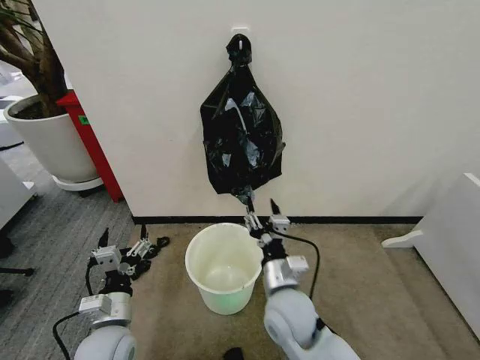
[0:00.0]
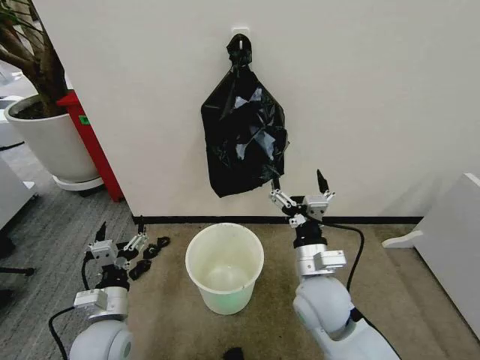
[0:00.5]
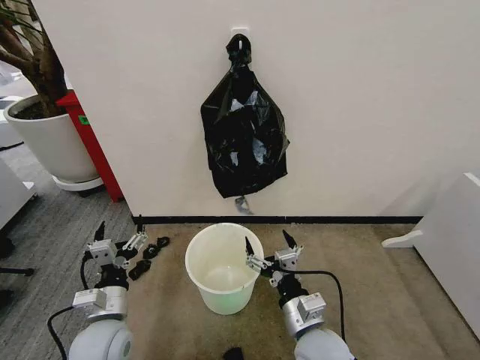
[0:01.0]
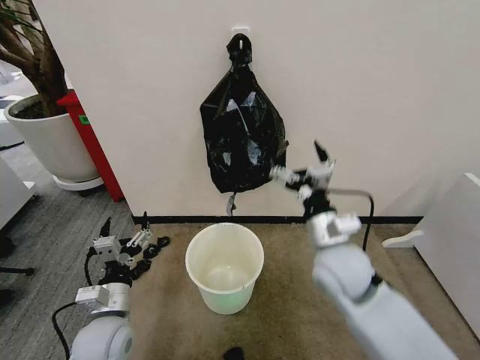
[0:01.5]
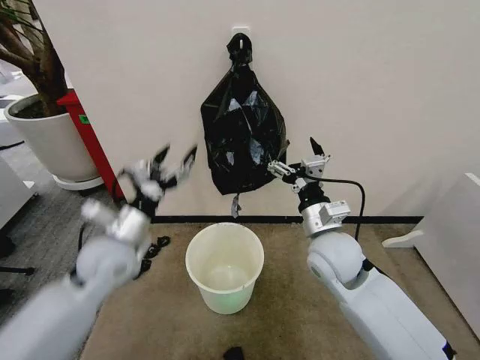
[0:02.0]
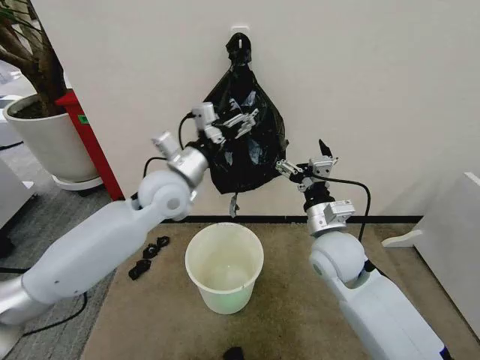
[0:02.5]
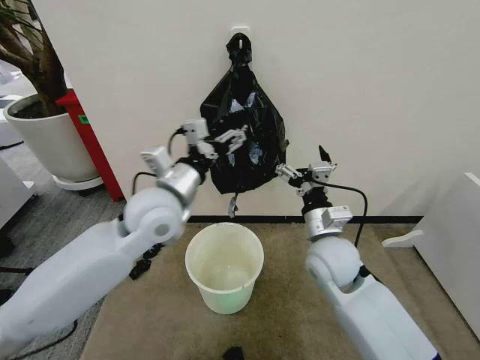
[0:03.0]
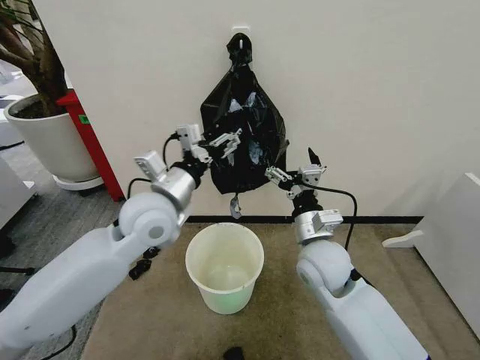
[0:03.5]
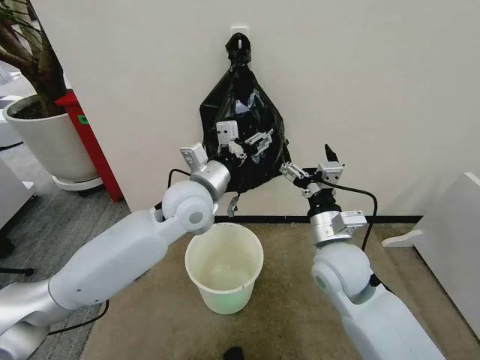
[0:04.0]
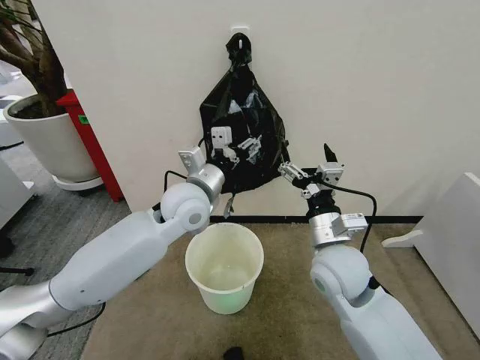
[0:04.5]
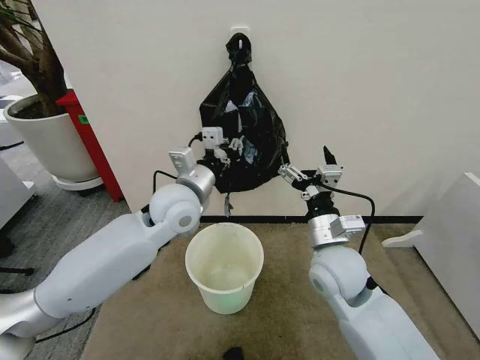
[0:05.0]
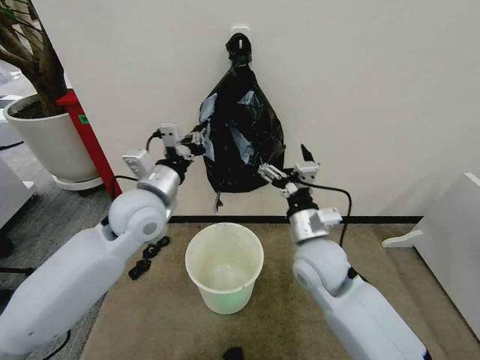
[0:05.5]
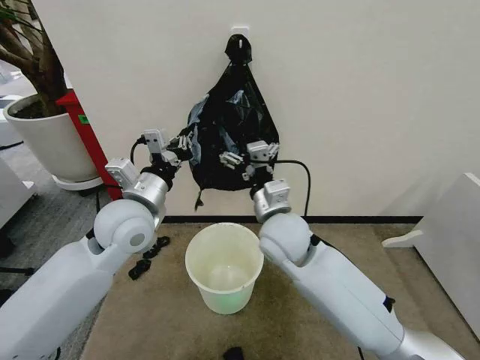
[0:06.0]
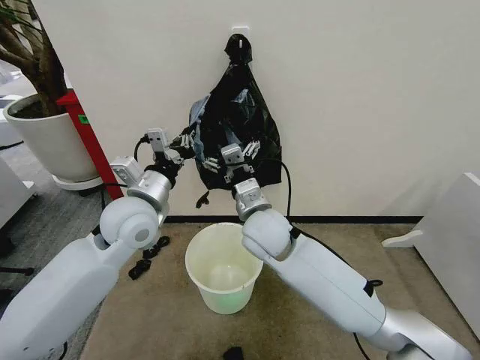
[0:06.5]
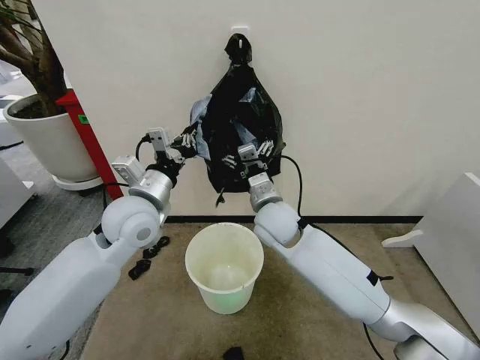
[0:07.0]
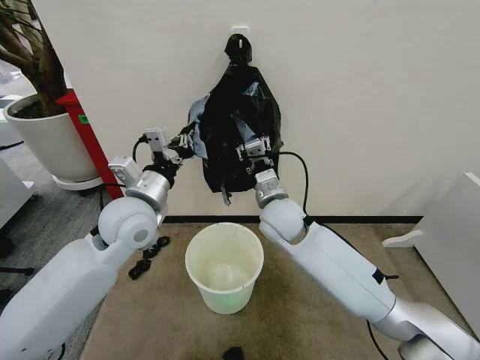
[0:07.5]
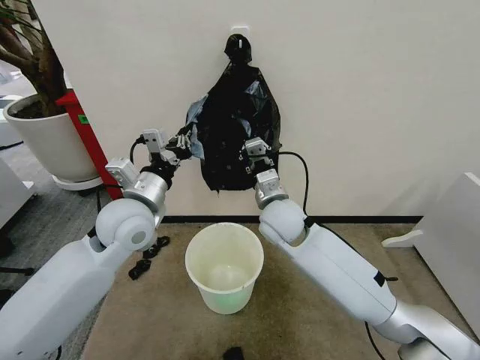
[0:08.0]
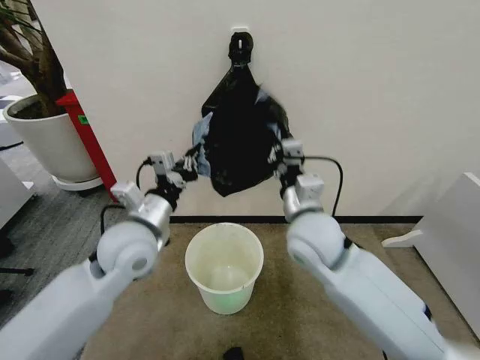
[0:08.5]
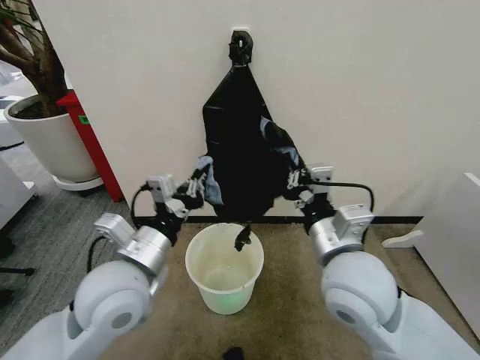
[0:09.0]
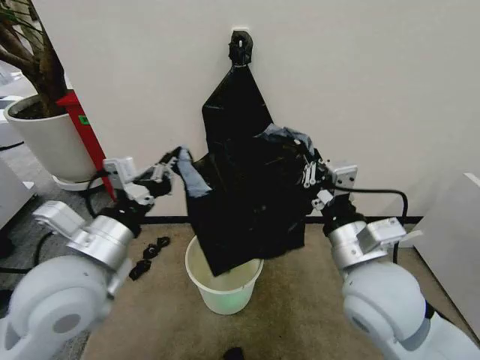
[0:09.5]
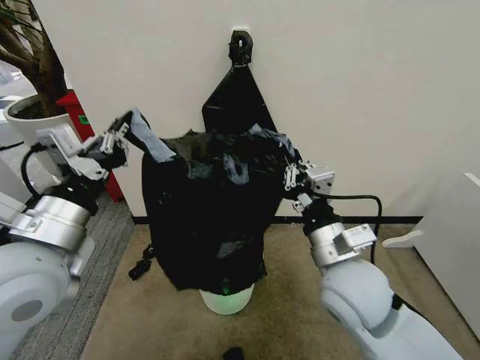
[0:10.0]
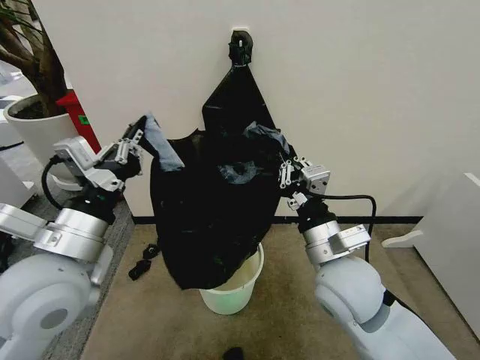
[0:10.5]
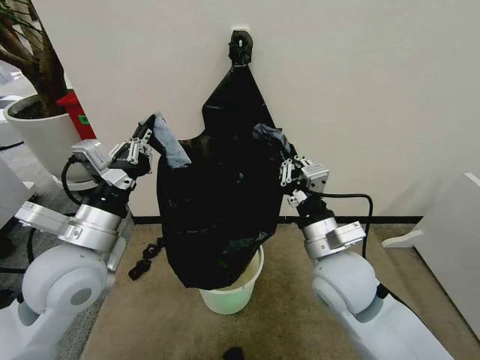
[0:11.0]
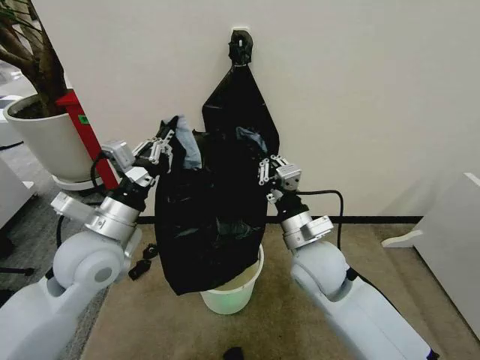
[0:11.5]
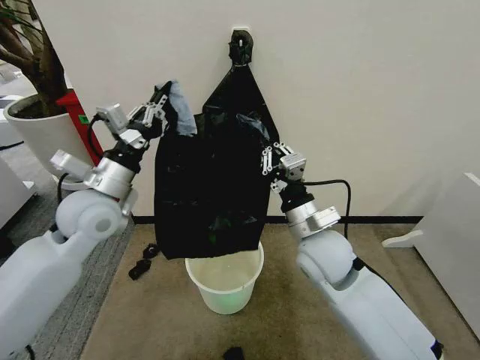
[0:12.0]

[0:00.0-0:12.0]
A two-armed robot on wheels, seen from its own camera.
Task of the whole recording: Place the garbage bag over the trash bin.
0:00.0 to 0:02.0: The right gripper shifts some 15 cm upward, to the right and forward, and opens, while the left gripper moves upward and forward, approximately 15 cm.
0:02.0 to 0:04.0: The left gripper goes roughly 20 cm to the right, forward and upward.
0:04.0 to 0:06.0: The left gripper is displaced to the left by approximately 10 cm, and closes up, while the right gripper shifts some 10 cm to the left and forward.
0:06.0 to 0:08.0: The right gripper travels forward by some 5 cm, and closes.
0:08.0 to 0:10.0: The left gripper moves backward and upward, roughly 15 cm. The right gripper shifts roughly 20 cm backward and to the right.
0:10.0 to 0:12.0: The right gripper heads forward, covering approximately 10 cm, while the left gripper heads forward, covering approximately 15 cm.

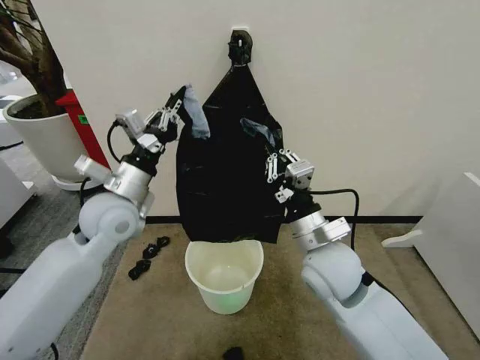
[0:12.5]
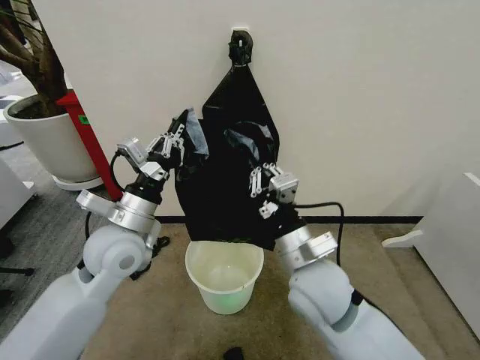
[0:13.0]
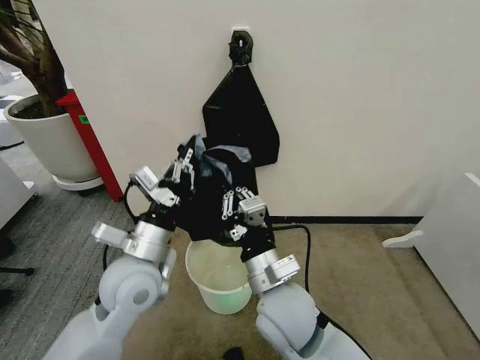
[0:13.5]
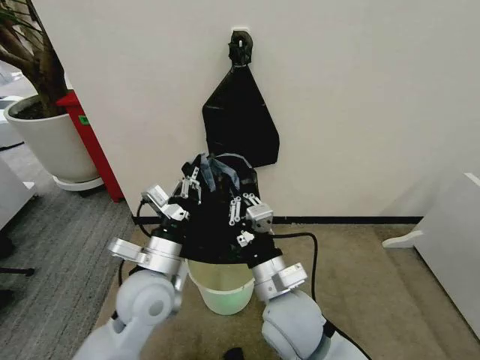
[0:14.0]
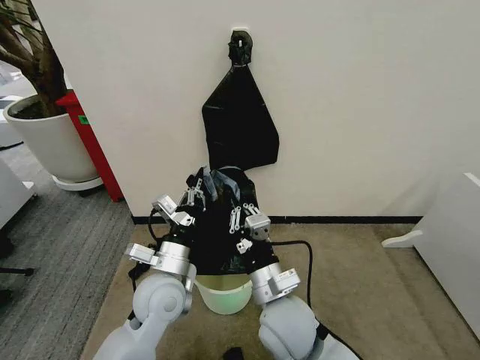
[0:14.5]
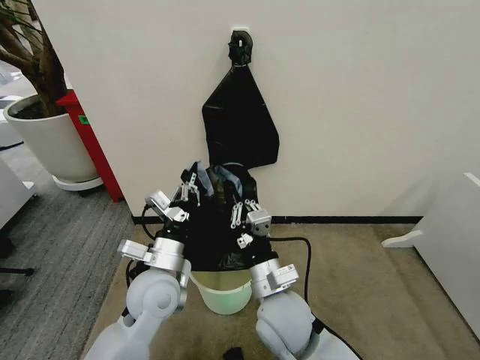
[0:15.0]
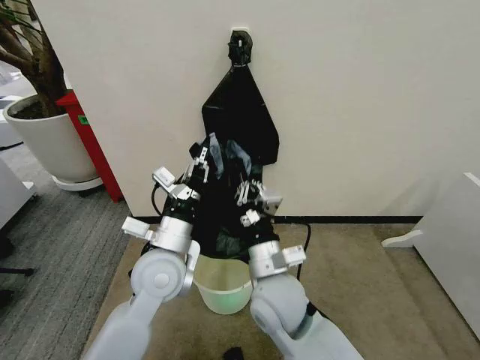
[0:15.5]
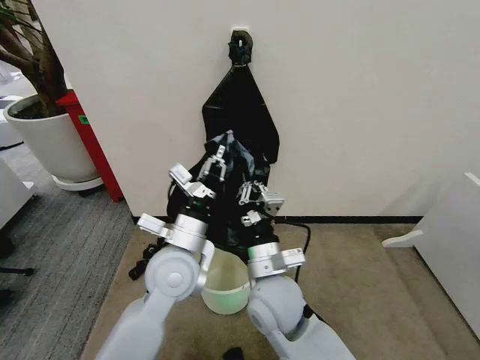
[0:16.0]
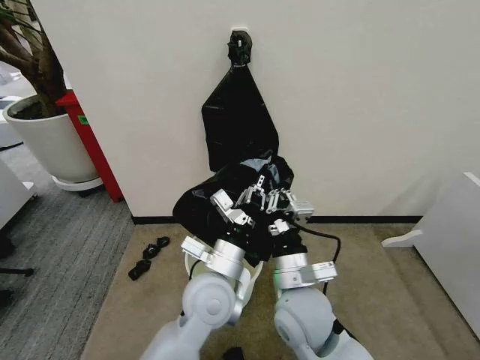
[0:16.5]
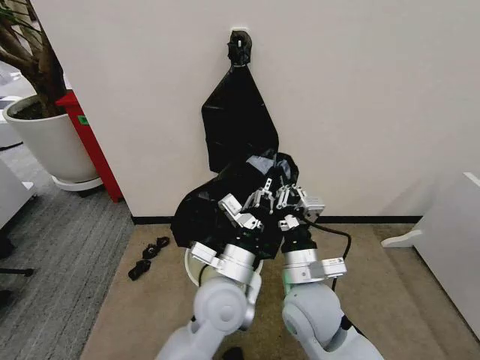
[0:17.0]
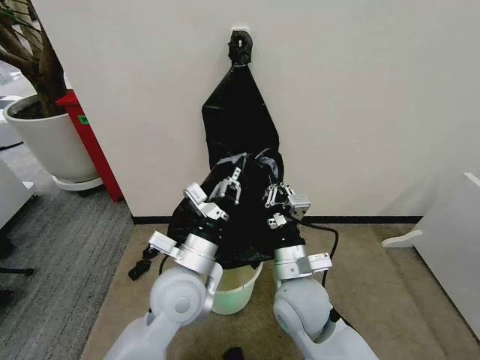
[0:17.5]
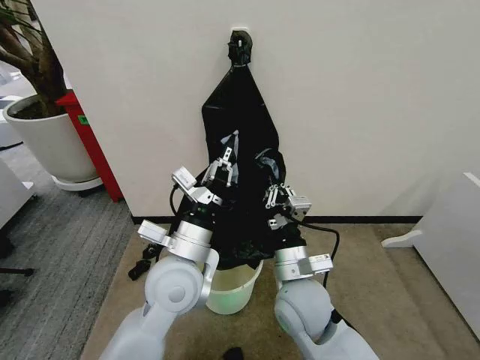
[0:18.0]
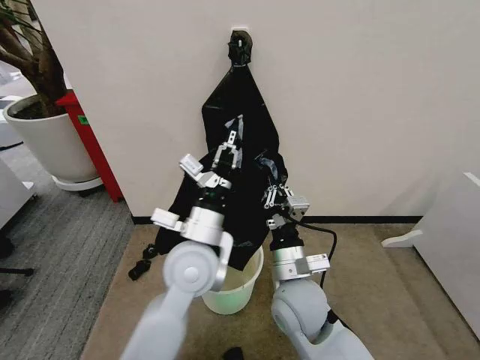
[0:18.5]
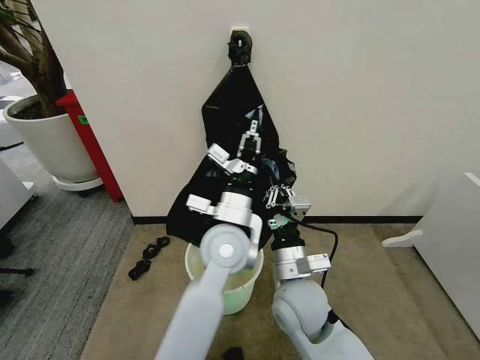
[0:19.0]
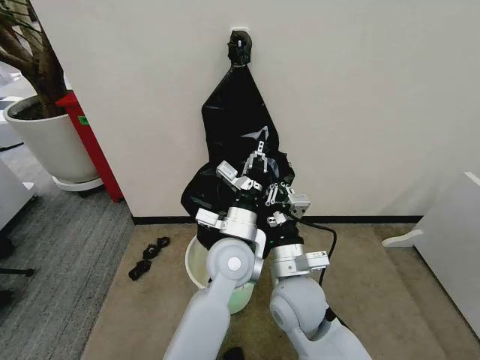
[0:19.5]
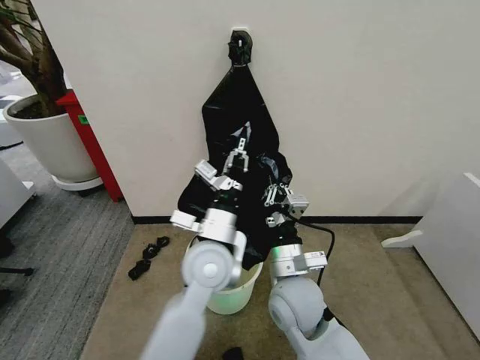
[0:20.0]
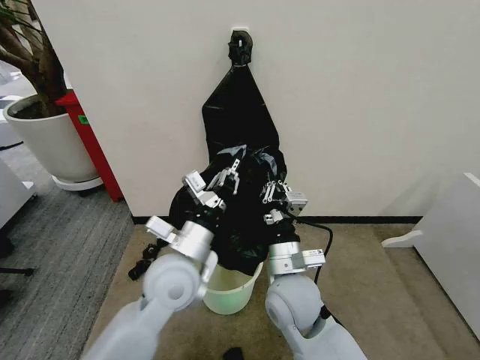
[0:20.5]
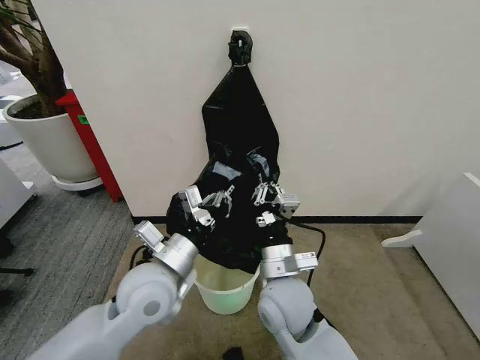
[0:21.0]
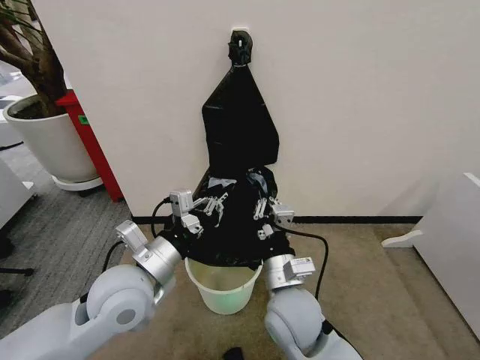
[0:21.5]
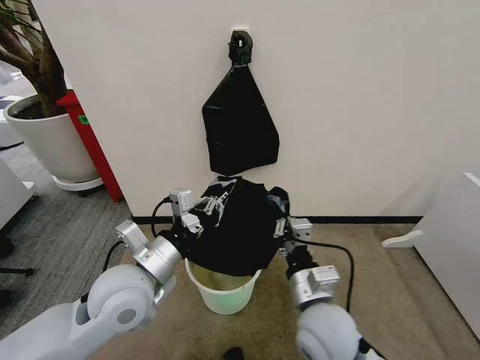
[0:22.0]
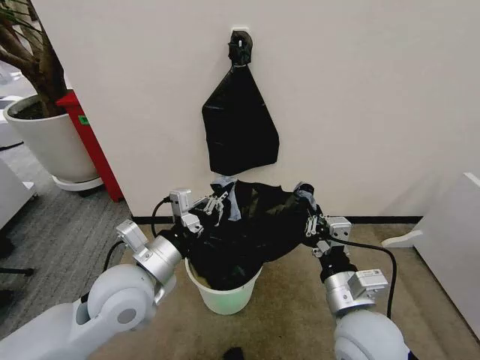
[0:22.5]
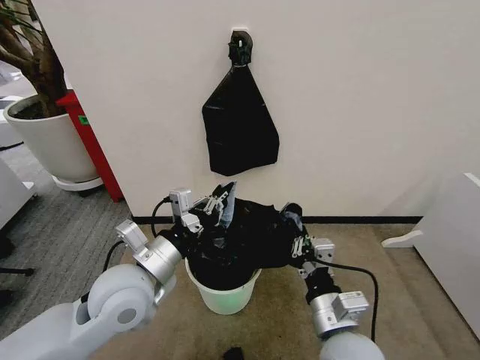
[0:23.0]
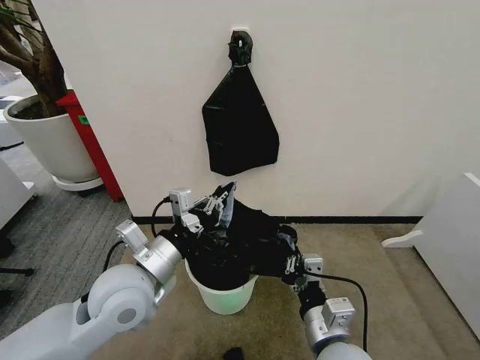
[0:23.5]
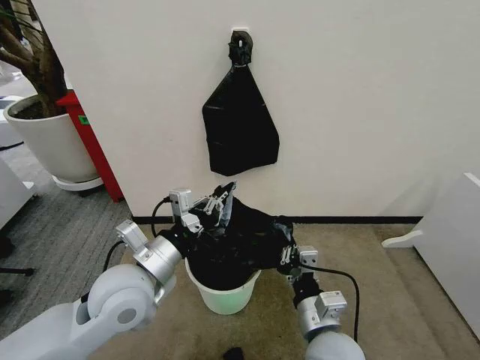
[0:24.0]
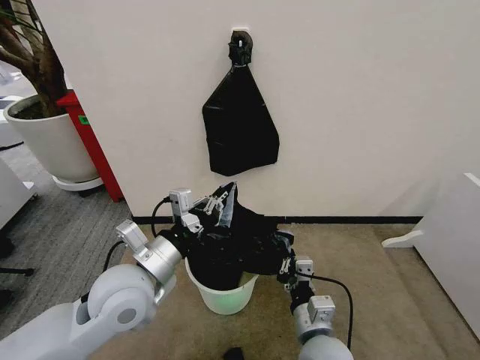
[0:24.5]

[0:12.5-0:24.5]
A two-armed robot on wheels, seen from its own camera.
Task of the whole recording: Place the garbage bag over the trash bin.
0:12.5 to 0:14.5: The right gripper heads to the left, backward and downward, covering approximately 10 cm. Meanwhile the left gripper moves downward, backward and to the right, some 20 cm.
0:14.5 to 0:16.5: The left gripper shifts approximately 10 cm to the right.
0:16.5 to 0:18.5: The left gripper moves upward, some 5 cm.
0:18.5 to 0:20.5: The left gripper goes to the right and returns, approximately 5 cm each way.
0:20.5 to 0:22.5: The right gripper goes approximately 10 cm to the right and backward. Meanwhile the left gripper is displaced to the left by roughly 5 cm.
0:22.5 to 0:24.5: The right gripper travels downward by about 10 cm.

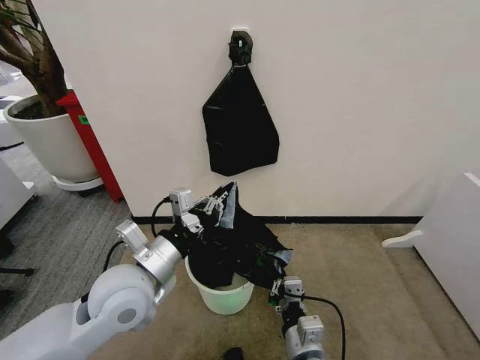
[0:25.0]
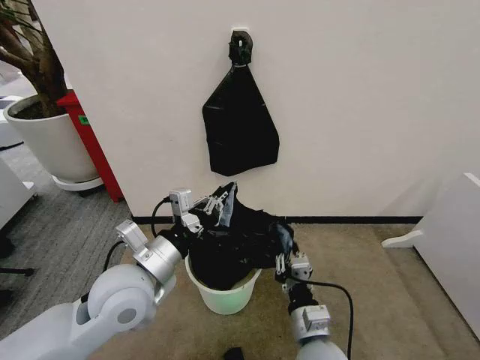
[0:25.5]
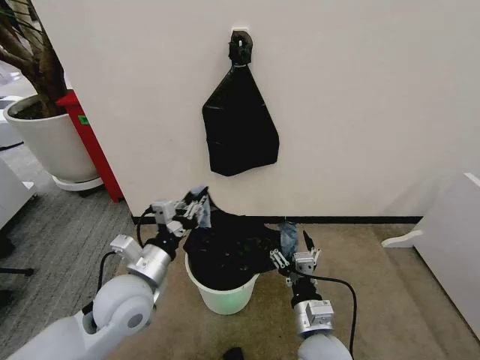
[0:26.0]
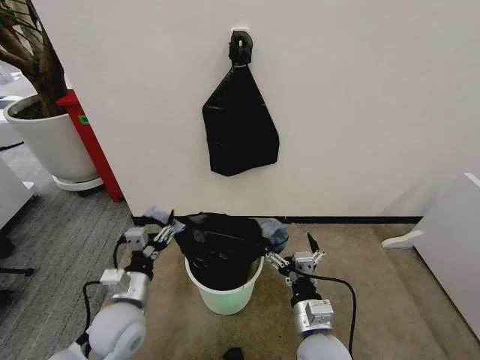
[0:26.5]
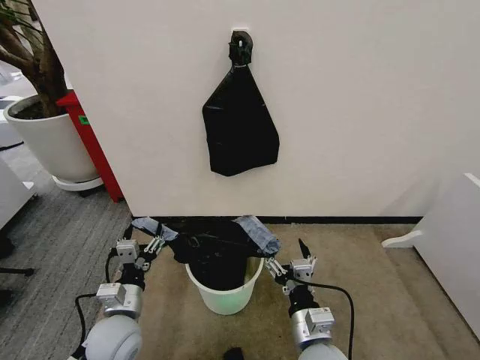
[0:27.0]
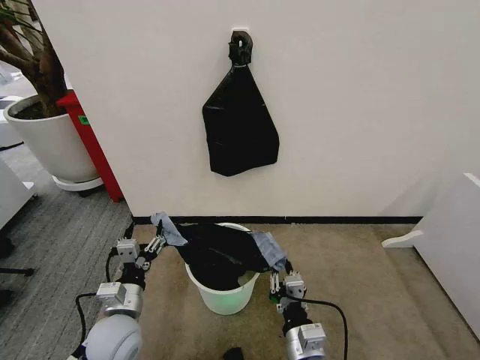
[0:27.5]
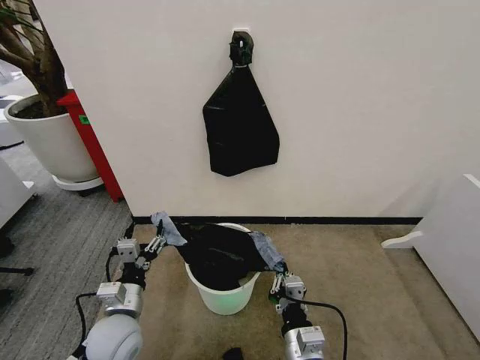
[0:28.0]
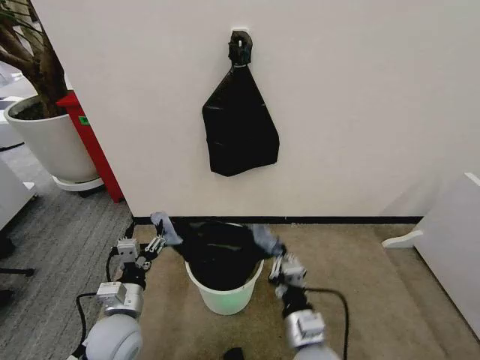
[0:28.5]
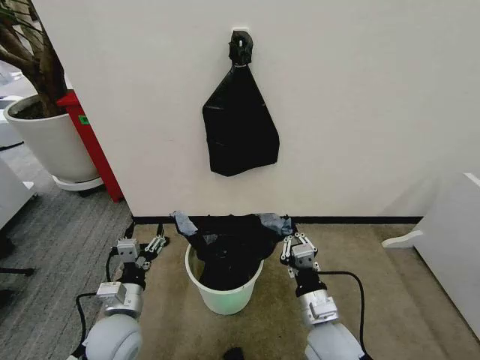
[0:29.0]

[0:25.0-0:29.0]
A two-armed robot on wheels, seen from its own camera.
Task of the whole recording: Place the garbage bag over the trash bin.
0:25.0 to 0:27.0: The left gripper goes roughly 15 cm downward, and opens; the right gripper opens.
0:27.0 to 0:29.0: The right gripper closes.
